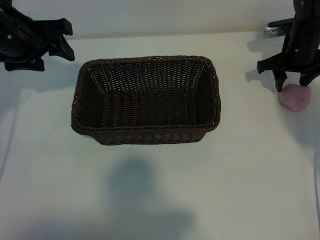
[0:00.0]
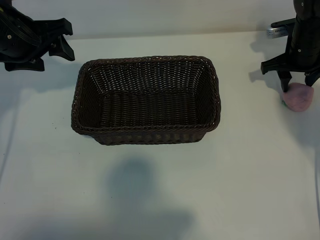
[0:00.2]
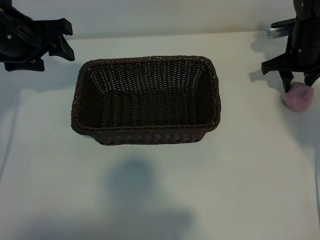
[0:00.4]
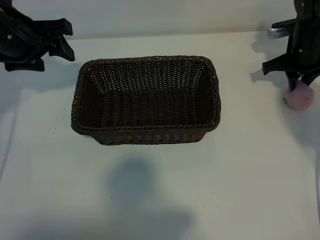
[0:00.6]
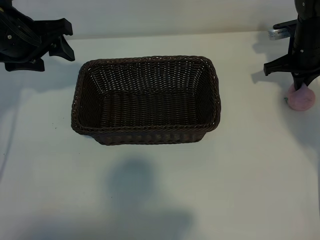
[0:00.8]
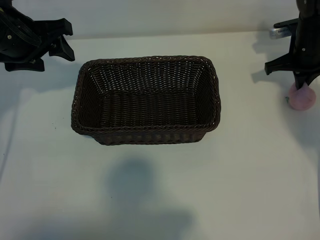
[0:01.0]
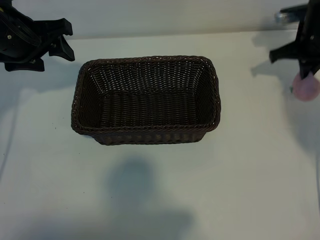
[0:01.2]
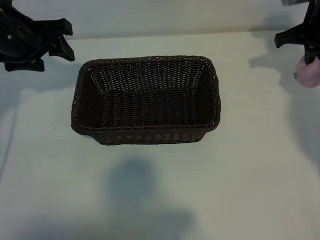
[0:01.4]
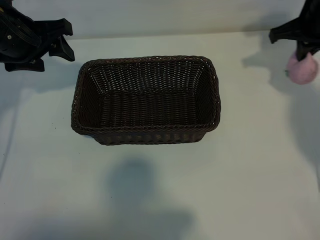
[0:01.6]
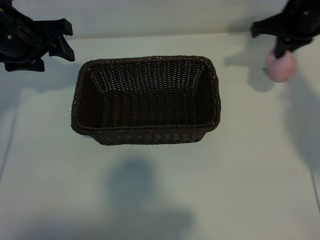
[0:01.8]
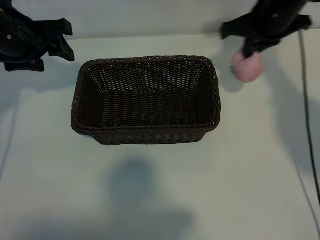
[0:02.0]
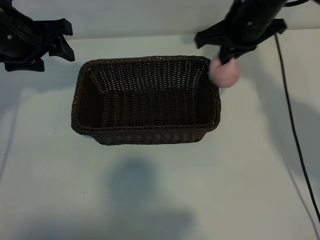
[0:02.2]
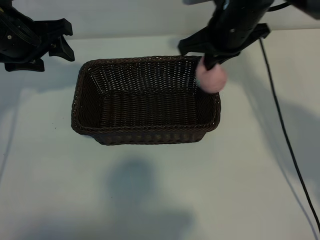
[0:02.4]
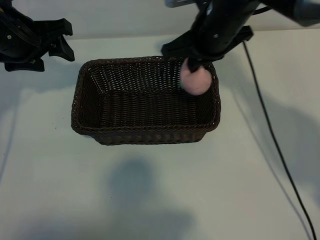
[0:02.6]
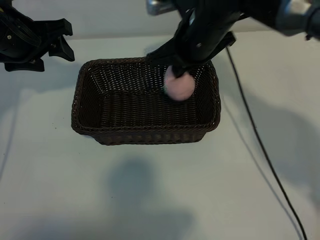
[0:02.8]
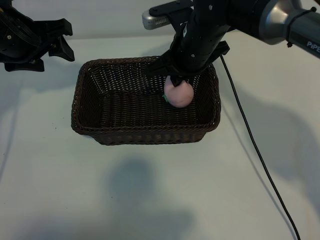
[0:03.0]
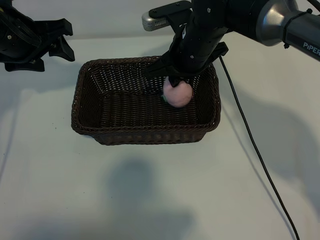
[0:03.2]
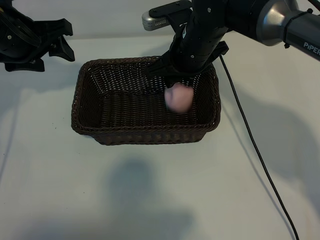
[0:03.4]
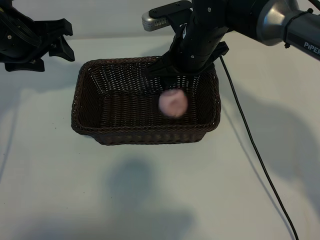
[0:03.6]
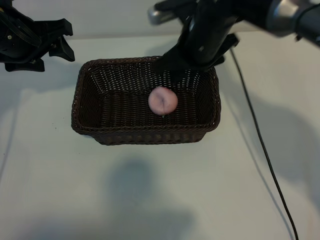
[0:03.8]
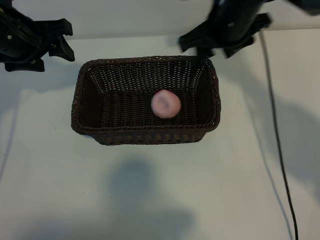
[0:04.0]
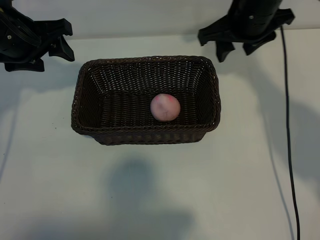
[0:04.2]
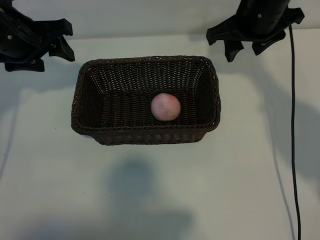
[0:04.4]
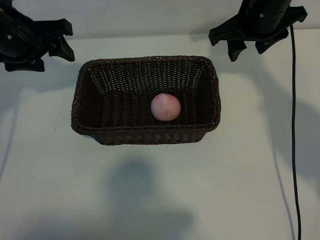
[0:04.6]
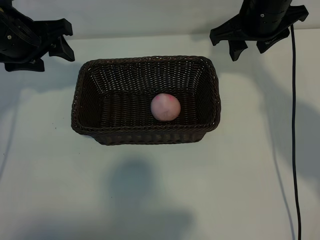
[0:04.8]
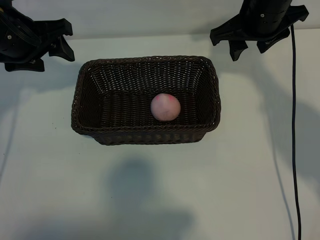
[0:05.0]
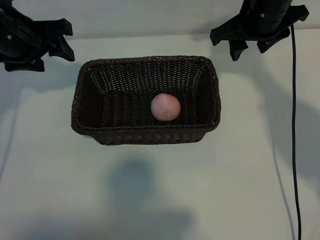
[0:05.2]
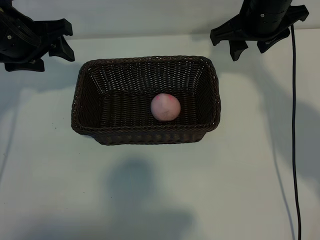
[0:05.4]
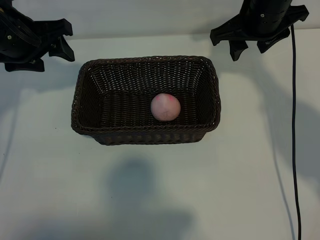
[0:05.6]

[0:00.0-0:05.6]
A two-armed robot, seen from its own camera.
Task of the whole recording: pick up the peach and put it into the basket.
Step, 0:01.0 to 0:03.4: Place the peach in the basket with right gripper.

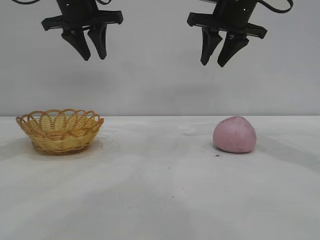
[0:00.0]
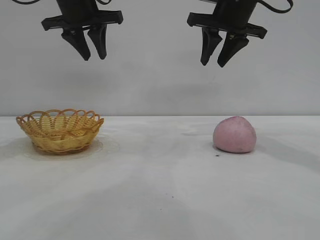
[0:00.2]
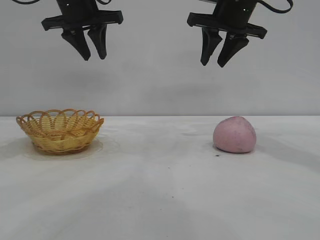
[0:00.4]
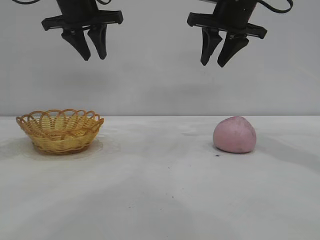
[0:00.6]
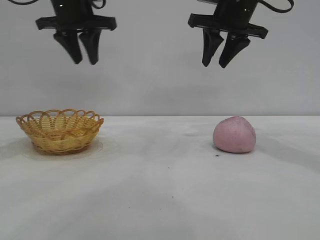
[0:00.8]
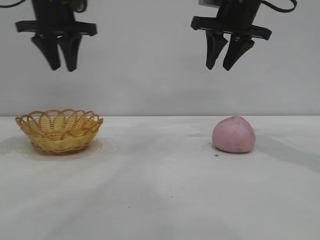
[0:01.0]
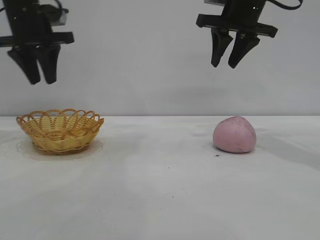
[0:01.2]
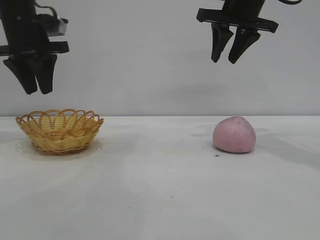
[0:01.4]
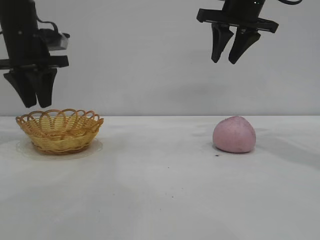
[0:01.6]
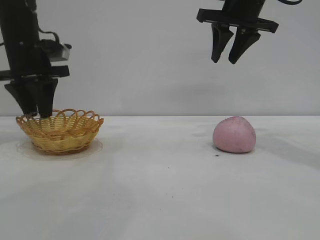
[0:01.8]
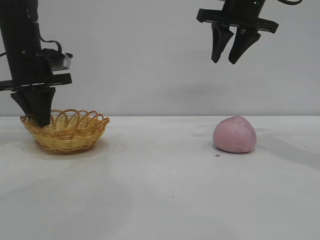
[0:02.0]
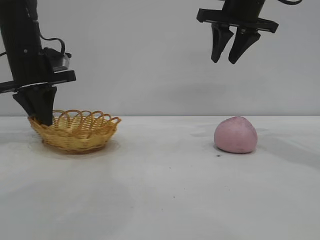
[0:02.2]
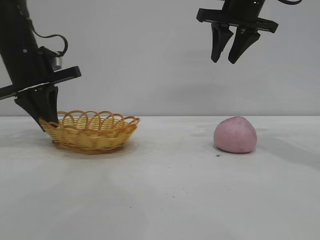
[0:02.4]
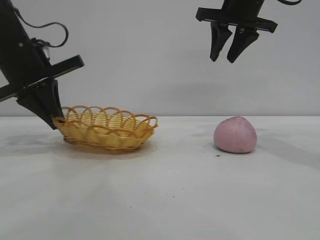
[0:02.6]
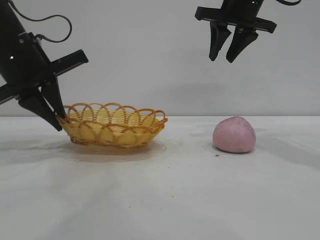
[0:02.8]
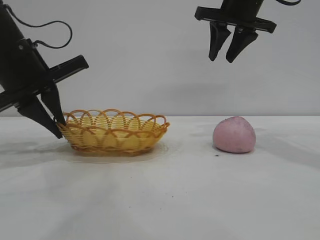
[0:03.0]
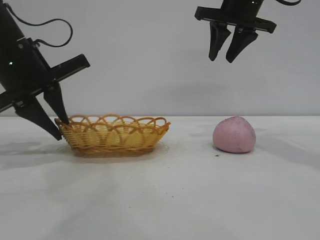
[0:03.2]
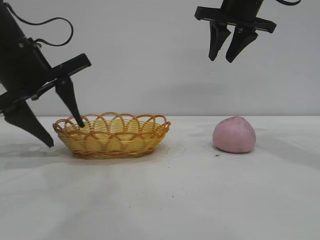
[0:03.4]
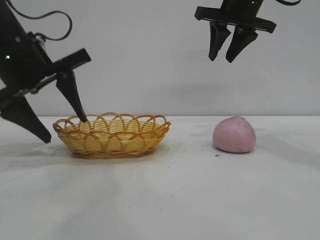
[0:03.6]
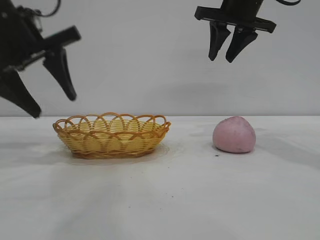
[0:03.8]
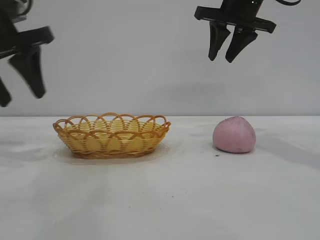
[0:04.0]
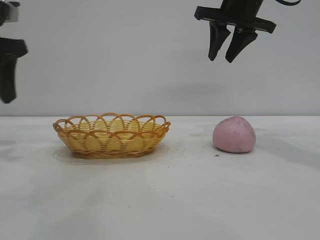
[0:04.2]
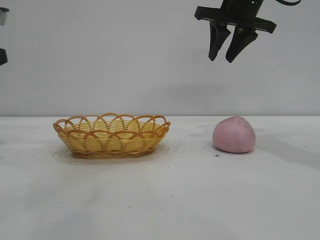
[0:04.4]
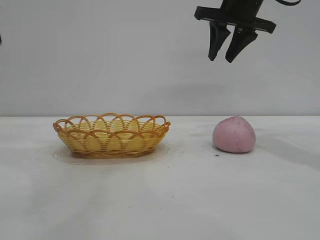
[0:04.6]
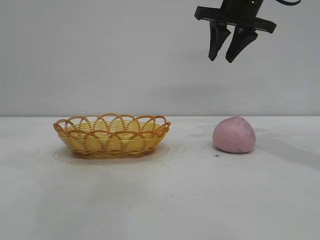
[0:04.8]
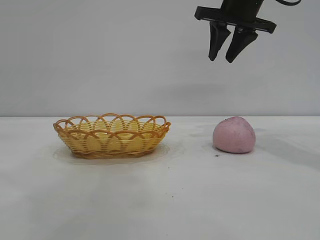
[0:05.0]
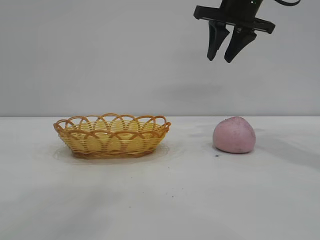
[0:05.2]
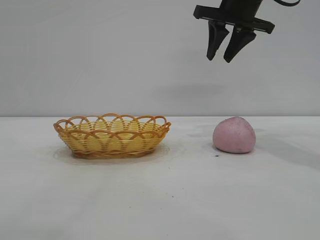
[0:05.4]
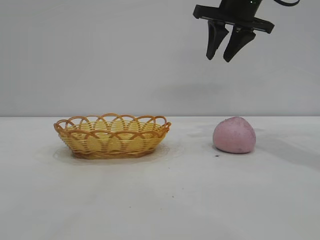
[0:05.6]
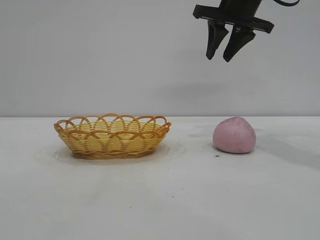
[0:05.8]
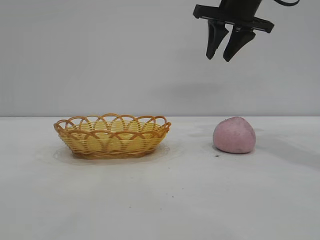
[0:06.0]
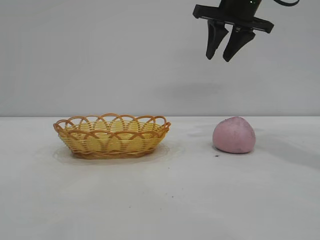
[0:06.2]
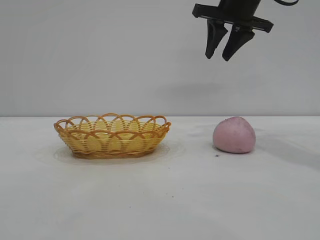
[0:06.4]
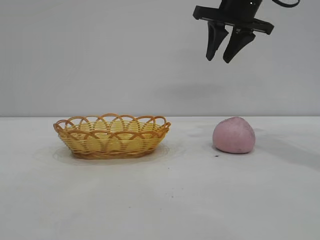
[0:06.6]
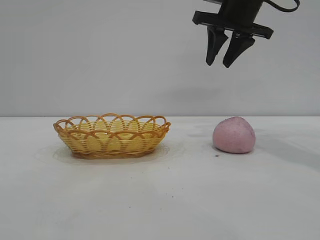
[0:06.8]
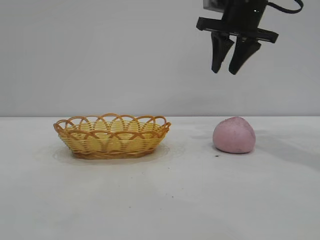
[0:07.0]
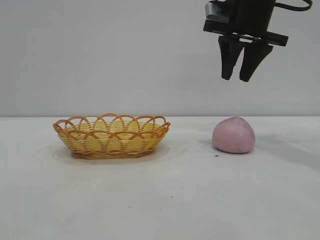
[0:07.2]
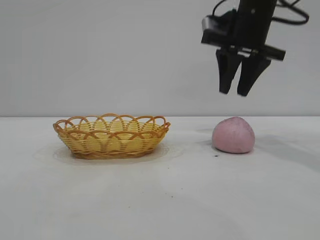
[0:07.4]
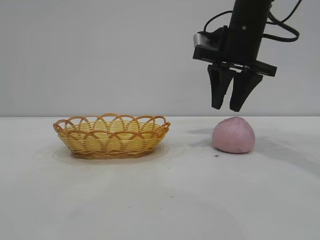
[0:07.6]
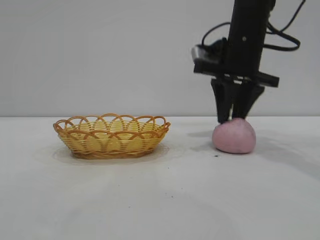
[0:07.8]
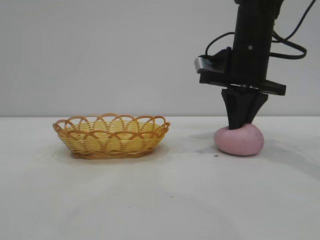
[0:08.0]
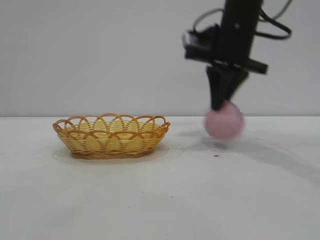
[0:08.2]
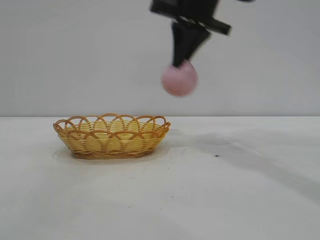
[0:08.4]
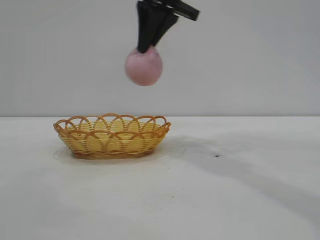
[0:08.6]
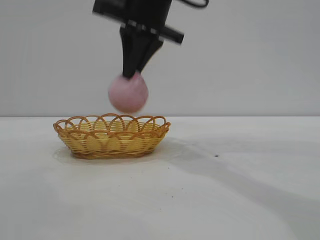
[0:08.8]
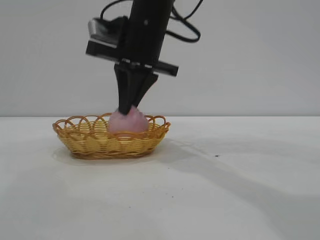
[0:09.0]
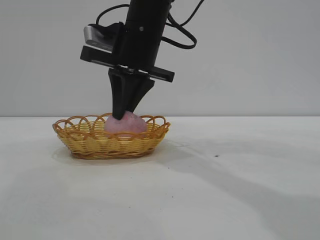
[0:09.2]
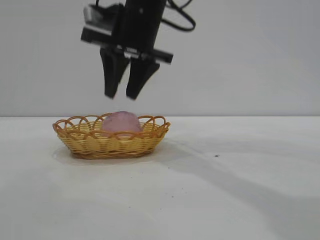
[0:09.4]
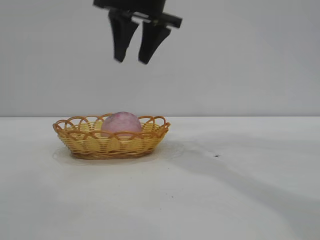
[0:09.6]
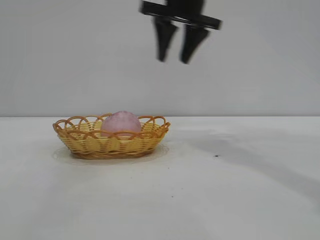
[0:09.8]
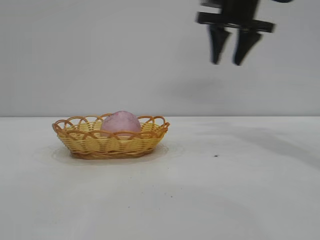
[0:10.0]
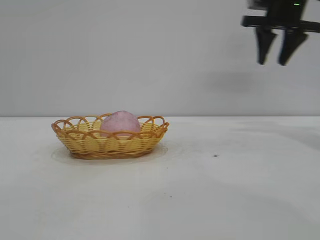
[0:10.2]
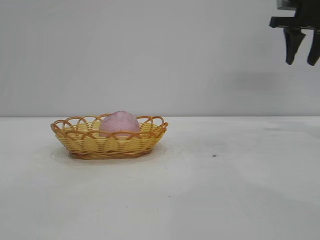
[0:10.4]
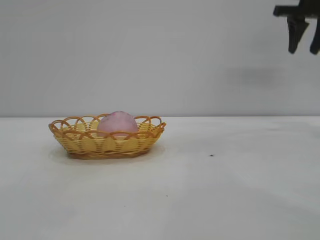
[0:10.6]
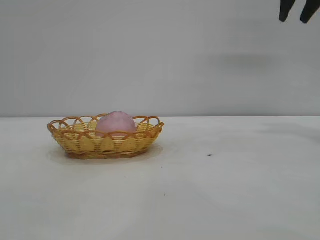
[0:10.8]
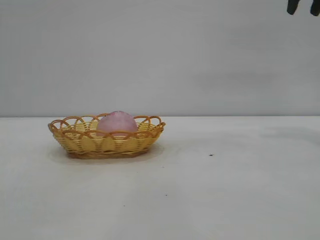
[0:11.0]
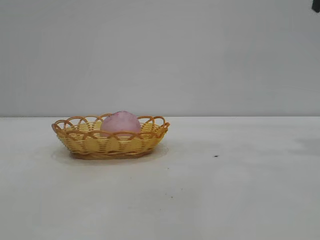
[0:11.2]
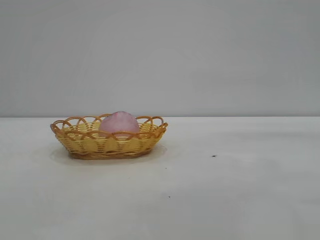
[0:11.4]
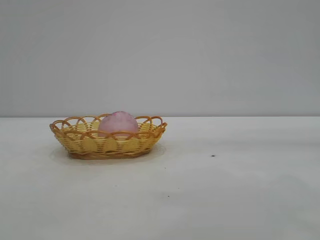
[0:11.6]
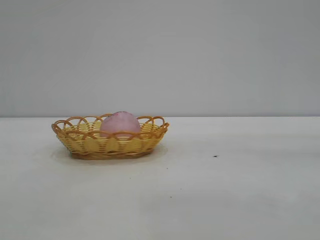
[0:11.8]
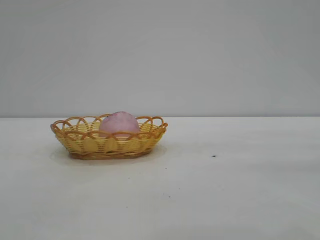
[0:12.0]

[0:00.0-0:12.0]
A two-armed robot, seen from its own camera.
Task of the whole recording: pick up the peach and put it into the basket.
Step, 0:00.0 to 0:03.8: Move the basket to the center of view.
Step, 0:04.0 to 0:08.2: Pick up the peach.
Step, 0:08.4 to 0:09.6: place the peach into the basket.
